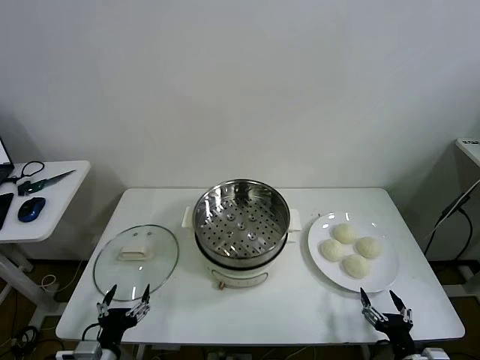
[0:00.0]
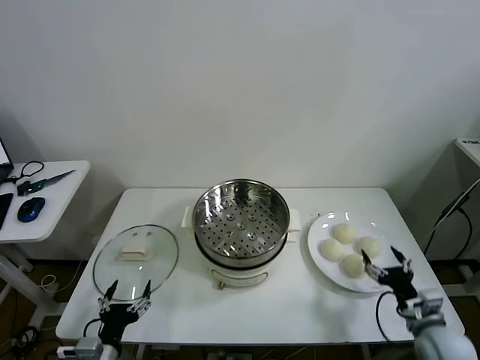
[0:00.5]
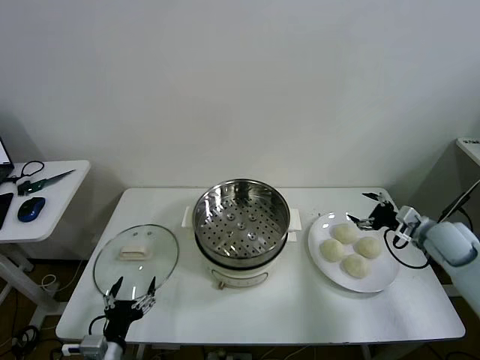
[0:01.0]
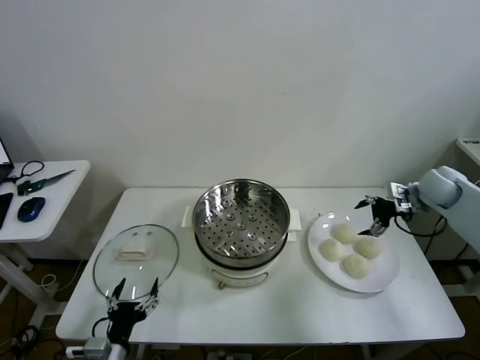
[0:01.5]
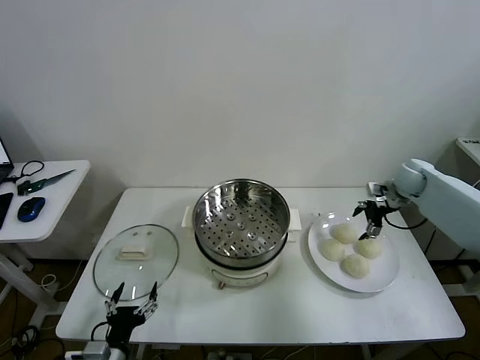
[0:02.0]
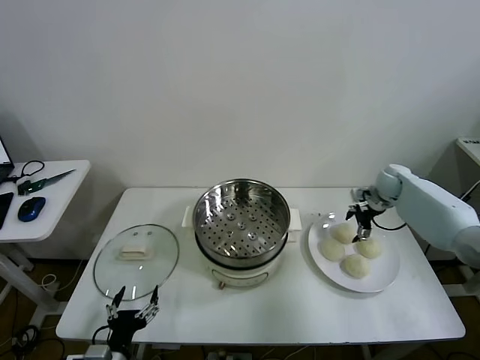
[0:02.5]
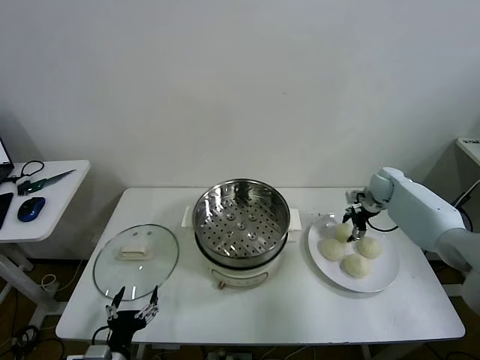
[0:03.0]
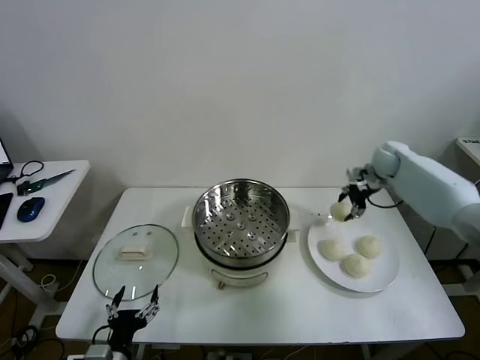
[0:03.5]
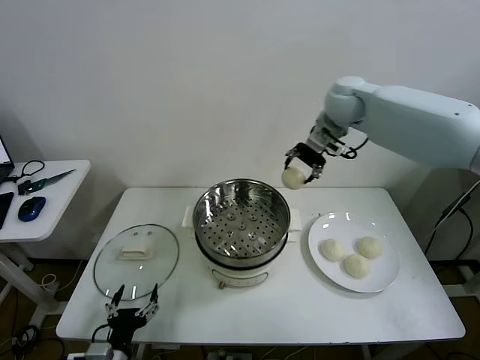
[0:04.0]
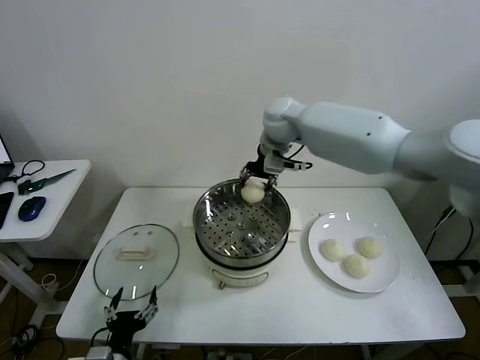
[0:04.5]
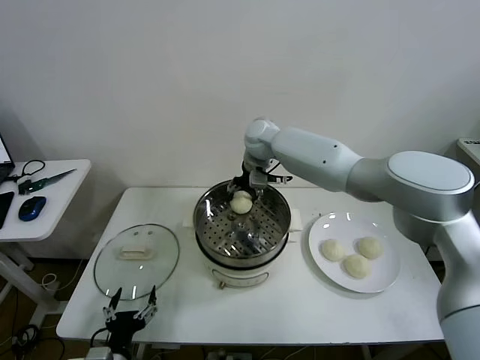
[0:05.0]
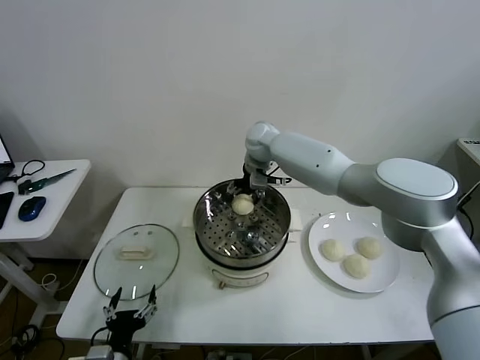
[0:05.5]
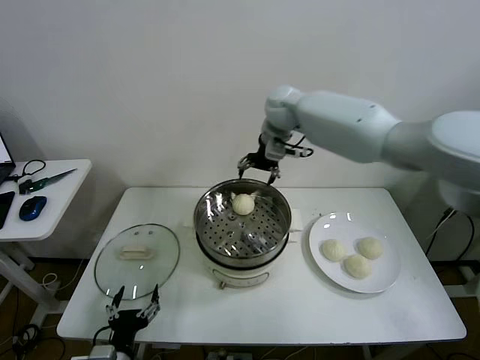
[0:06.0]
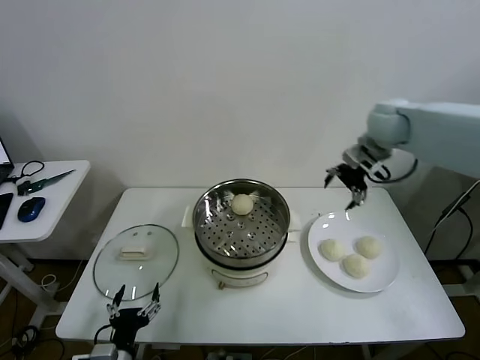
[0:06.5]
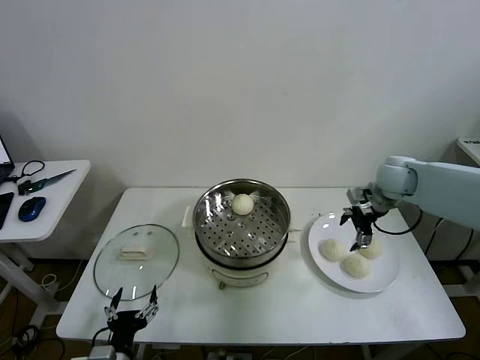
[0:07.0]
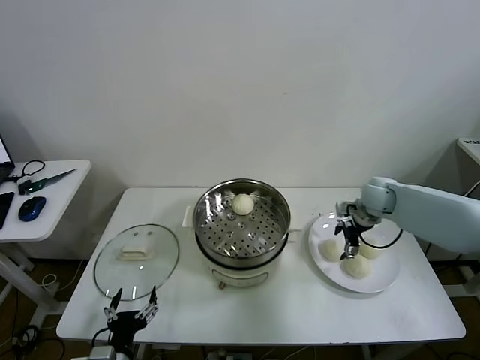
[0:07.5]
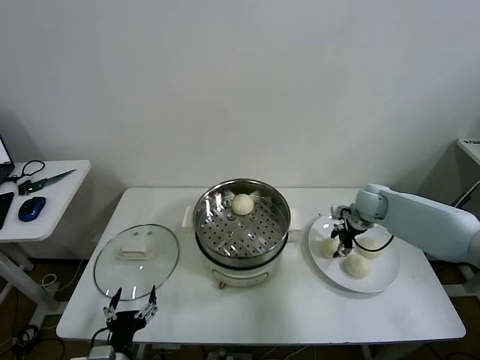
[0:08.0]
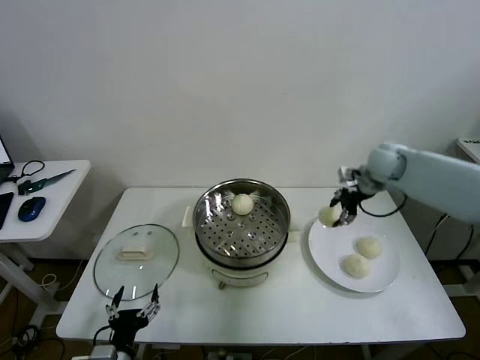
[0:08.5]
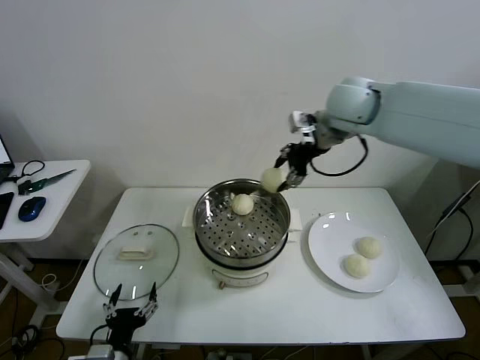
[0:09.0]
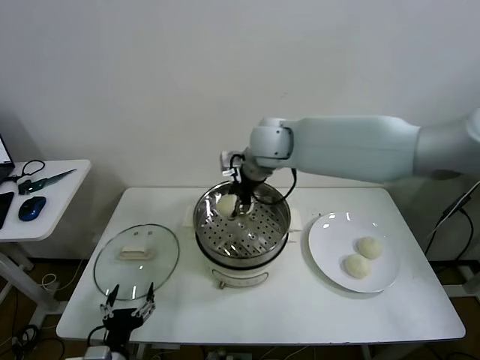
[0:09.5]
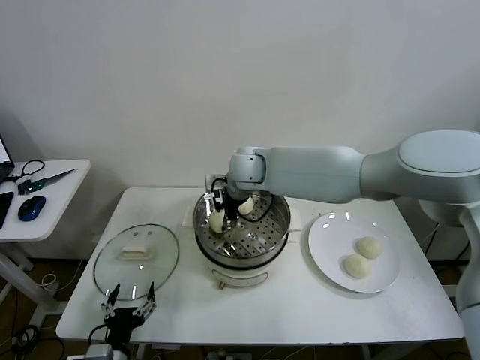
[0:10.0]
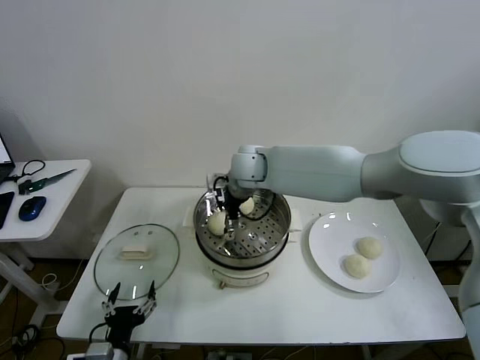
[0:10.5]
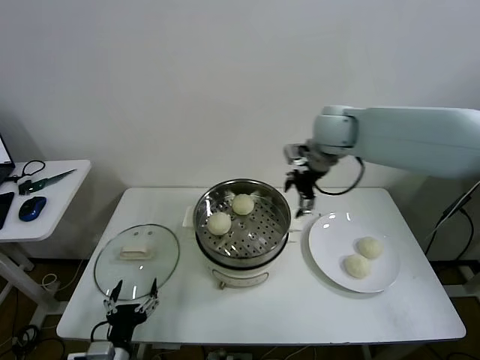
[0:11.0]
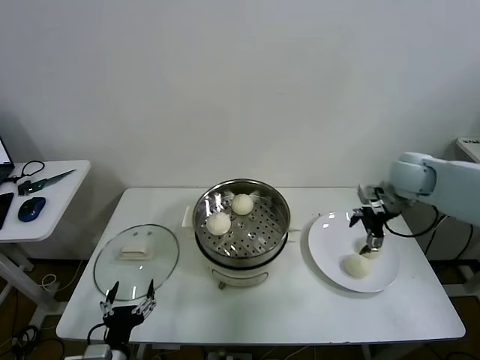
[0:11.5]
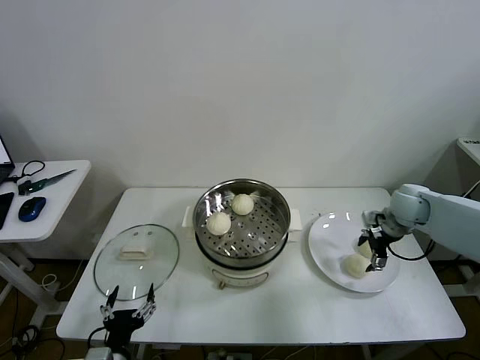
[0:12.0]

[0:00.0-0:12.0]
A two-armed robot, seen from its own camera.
Task of the whole recording: take steamed baozi put them in steamer then cover it.
Step, 0:00.0 to 0:02.5: Grasp the baozi in the plate with right gripper.
Step, 0:03.0 to 0:05.5: Place the baozi on the steamer with right gripper.
Step, 0:06.0 to 0:07.5: Grasp the baozi in the plate with right gripper.
Step, 0:08.0 to 0:10.0: Place the baozi on the steamer with right gripper.
0:02.0 to 0:04.0: The right gripper is displaced to the left and upward by roughly 35 cm, and closes.
0:04.0 to 0:06.0: The right gripper reaches roughly 15 cm to the left, then returns, and opens its fingers.
0:06.0 to 0:08.0: The right gripper goes approximately 35 cm downward and to the right, and closes.
0:08.0 to 0:10.0: The right gripper heads to the left, covering some 35 cm.
0:10.0 to 0:12.0: The right gripper heads to the right, covering some 40 cm, and opens.

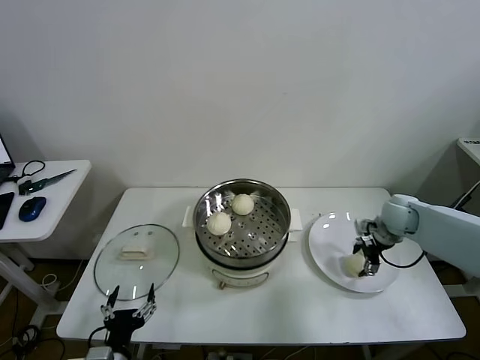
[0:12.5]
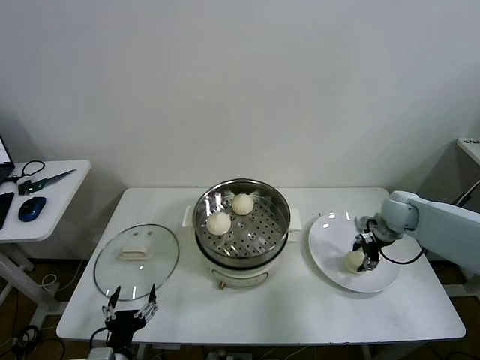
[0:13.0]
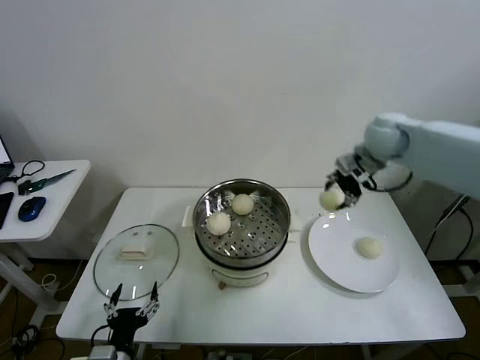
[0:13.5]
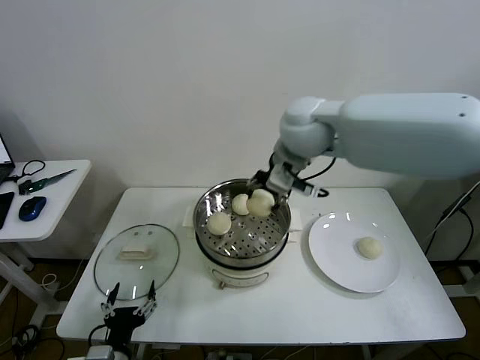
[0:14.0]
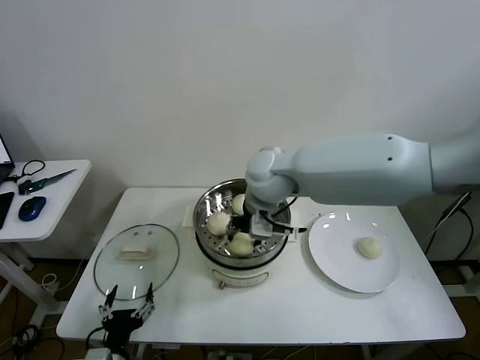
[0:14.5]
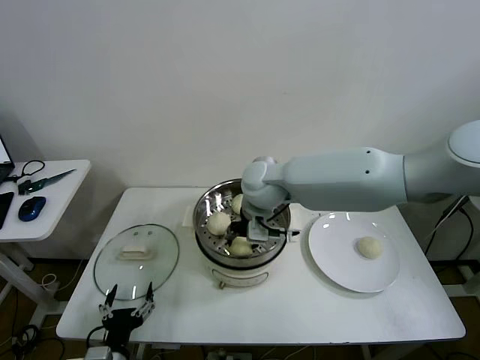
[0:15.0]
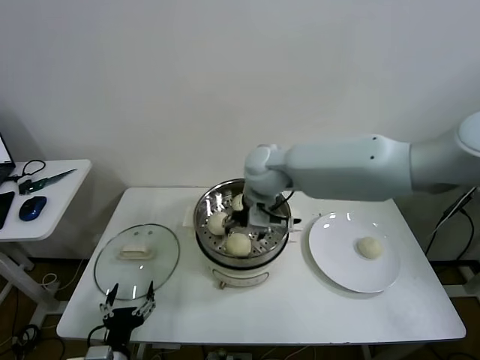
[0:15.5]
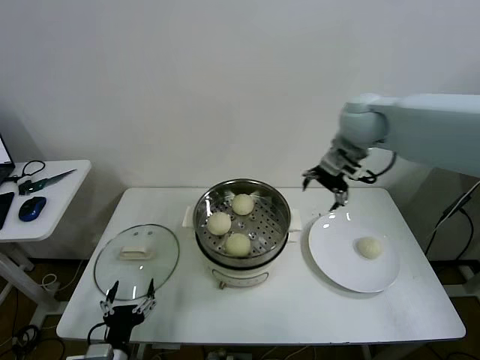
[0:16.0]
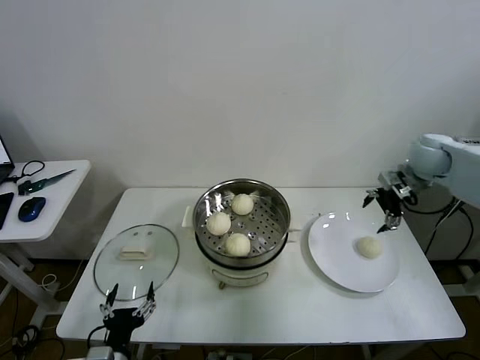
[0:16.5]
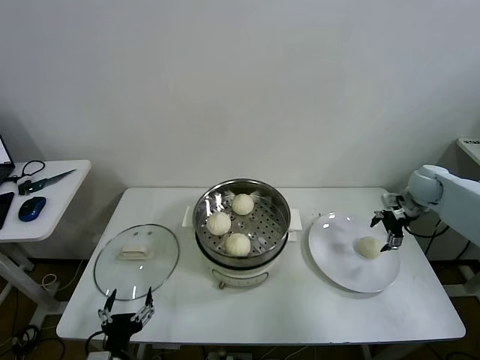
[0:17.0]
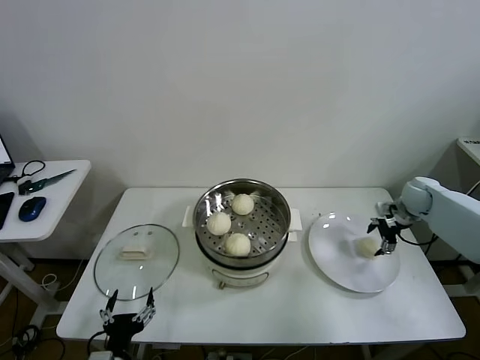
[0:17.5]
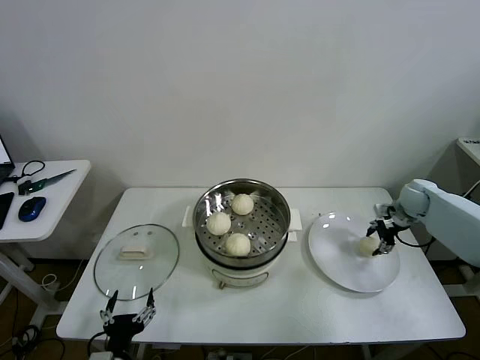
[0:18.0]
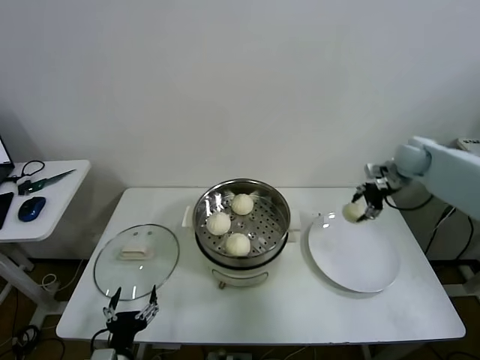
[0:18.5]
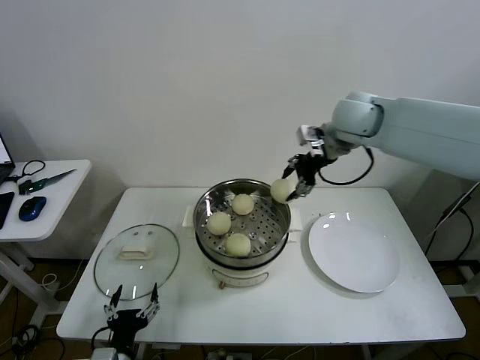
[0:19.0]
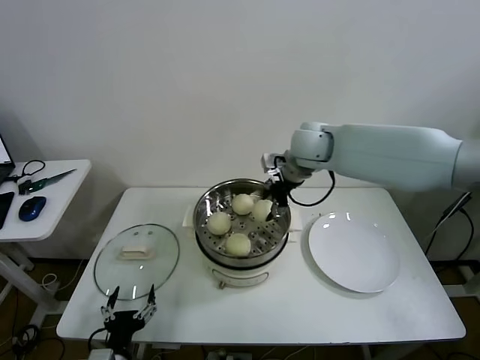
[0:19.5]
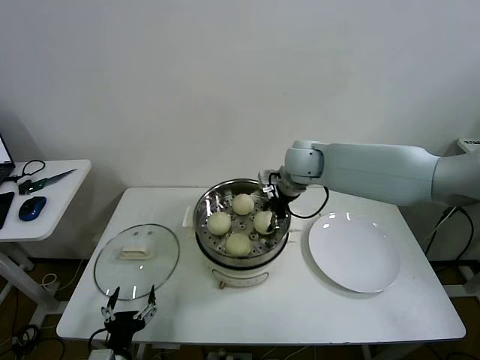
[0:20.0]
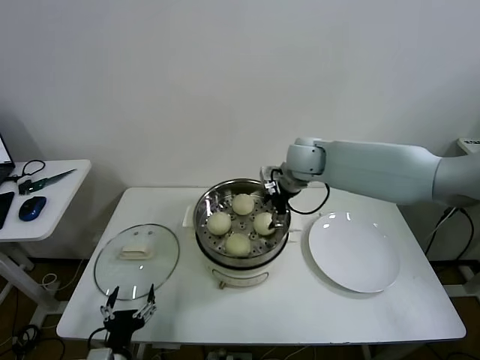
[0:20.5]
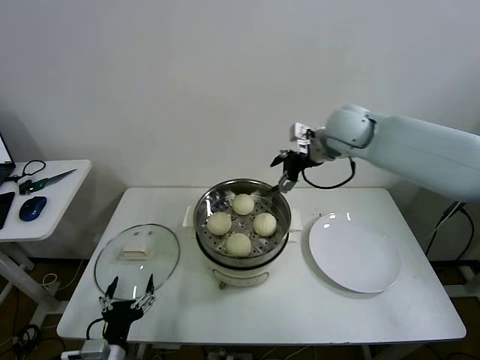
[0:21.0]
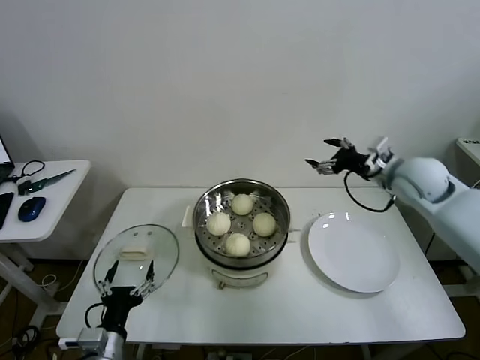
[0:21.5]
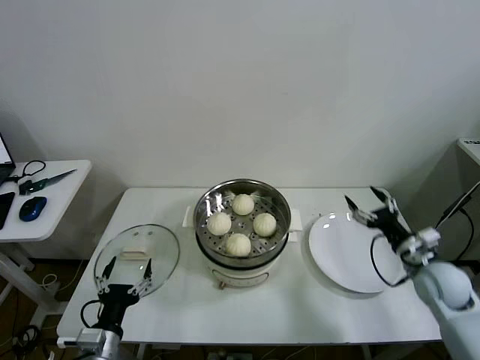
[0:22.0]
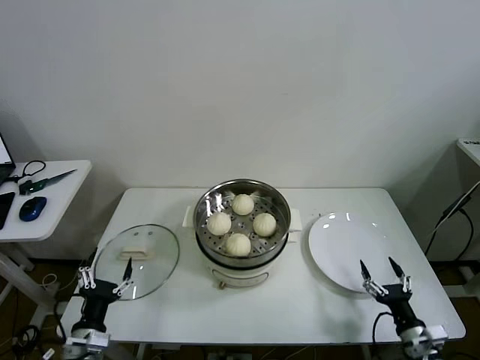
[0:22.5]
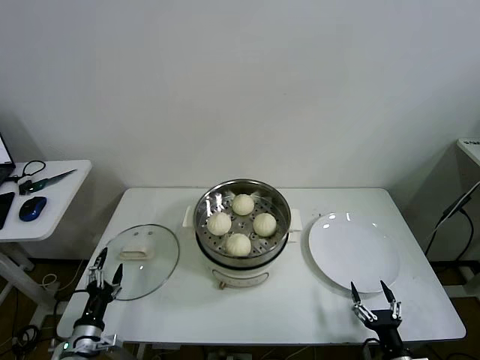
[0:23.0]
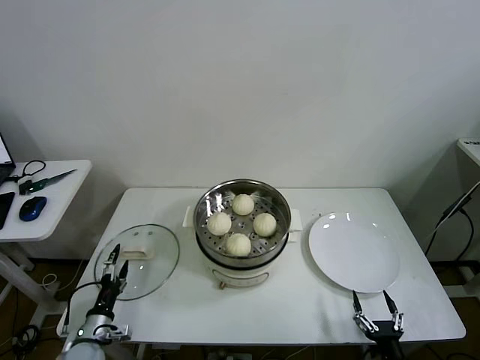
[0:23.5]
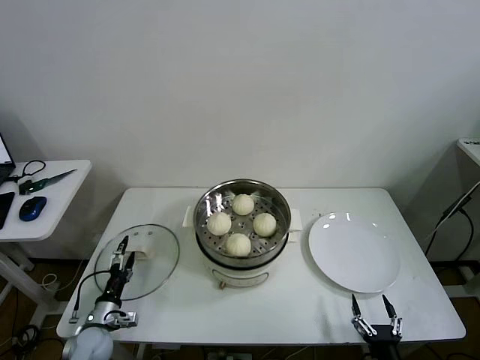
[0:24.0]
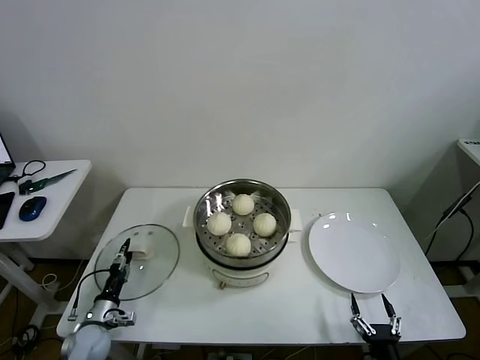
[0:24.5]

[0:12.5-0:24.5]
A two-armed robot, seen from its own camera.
Task of the whole recording: take steamed baozi put them in steamer then cover it.
Step, 0:13.0 to 0:15.0: Place the baozi on the steamer with right gripper.
Step, 0:15.5 to 0:17.5: Grasp the baozi in the plate with right gripper.
Step, 0:18.0 to 0:20.5: Place the baozi on the steamer with right gripper.
0:12.5 to 0:14.5: The right gripper moves to the left and upward, some 40 cm, and closes up.
0:14.5 to 0:16.5: The right gripper travels to the right by approximately 40 cm, and opens up.
0:16.5 to 0:18.5: The right gripper moves approximately 15 cm downward and comes back, and closes its fingers.
0:18.5 to 0:20.5: The right gripper is displaced to the left by some 25 cm, and opens its fingers.
0:20.5 to 0:22.5: The left gripper travels to the left by about 5 cm. The right gripper travels backward, downward and to the right by approximately 60 cm.
0:22.5 to 0:24.5: The right gripper travels backward and to the left by about 10 cm, while the left gripper is displaced downward, forward and to the left by about 20 cm, and closes.

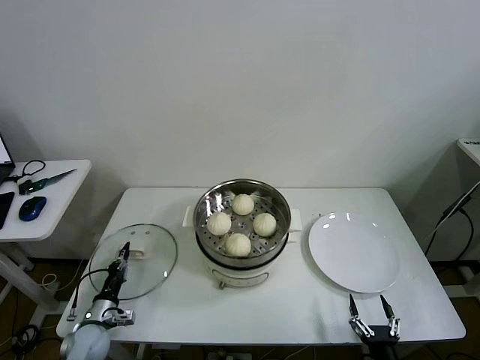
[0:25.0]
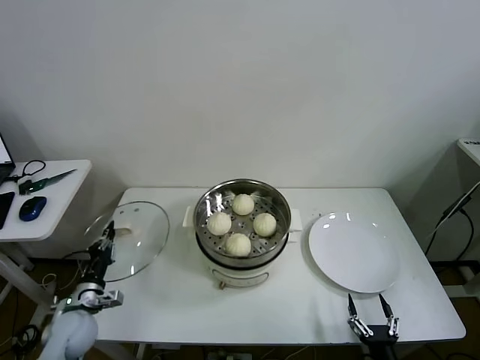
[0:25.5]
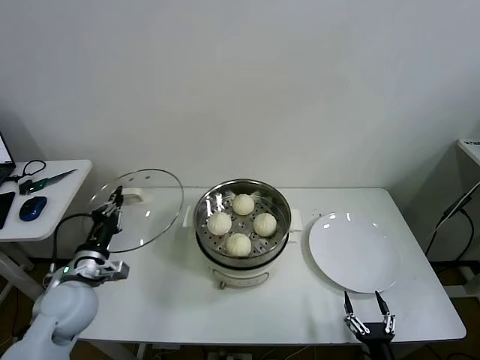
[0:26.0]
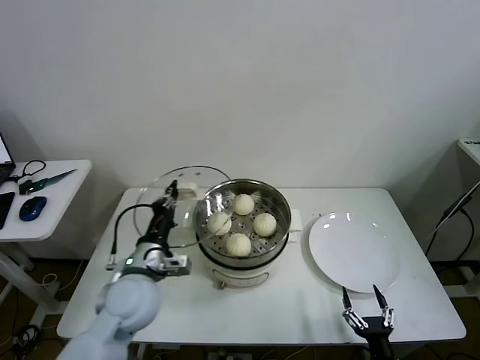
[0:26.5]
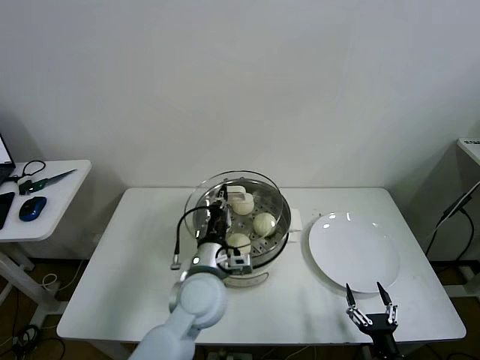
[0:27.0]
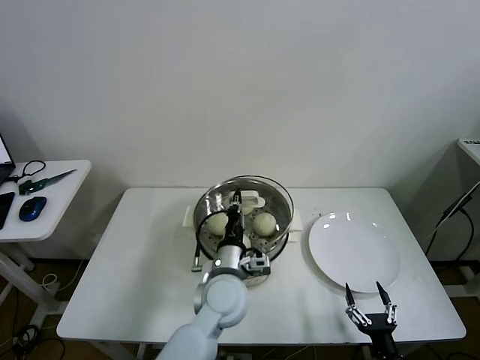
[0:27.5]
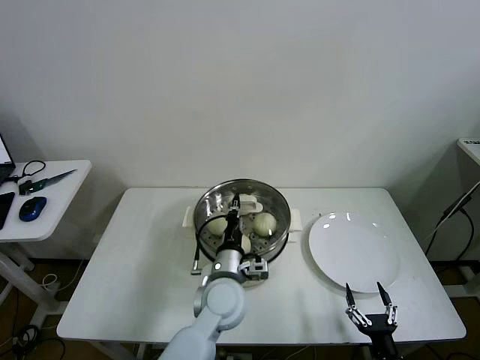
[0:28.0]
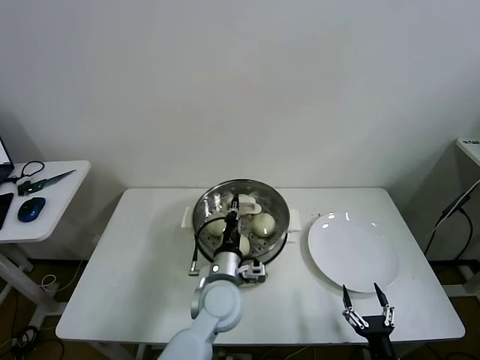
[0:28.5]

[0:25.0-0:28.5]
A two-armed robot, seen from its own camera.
Task of the whole recording: take steamed baozi put them in steamer then cover it.
0:25.0 to 0:27.0: The left gripper shifts some 40 cm to the right and upward.
0:27.0 to 0:28.5: The left gripper is displaced downward by about 5 cm.
